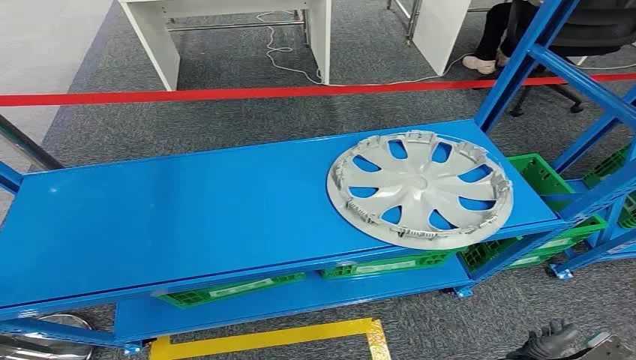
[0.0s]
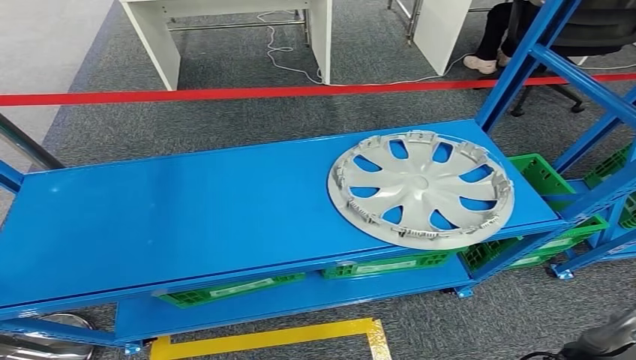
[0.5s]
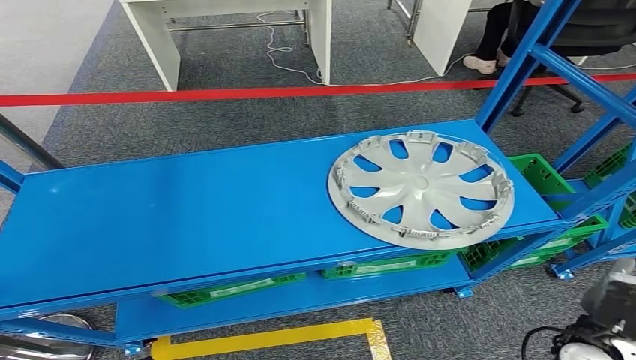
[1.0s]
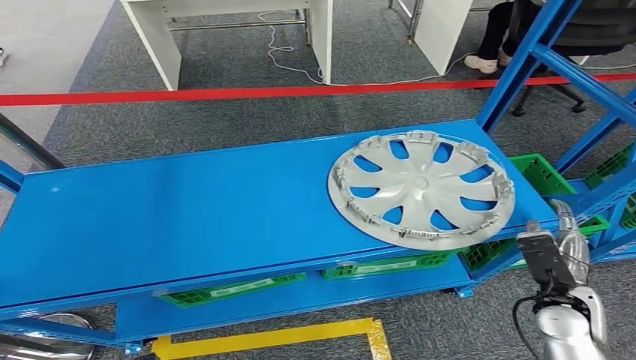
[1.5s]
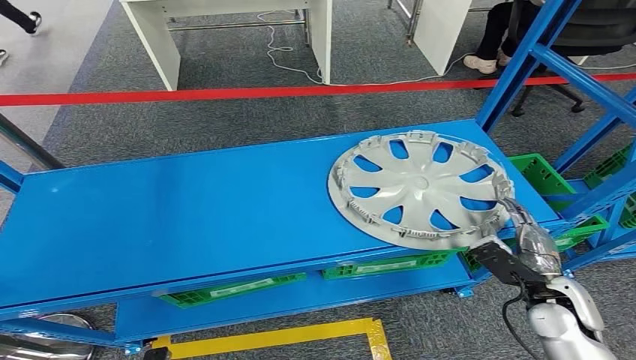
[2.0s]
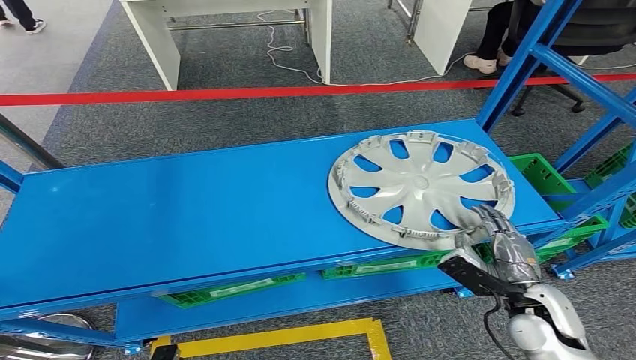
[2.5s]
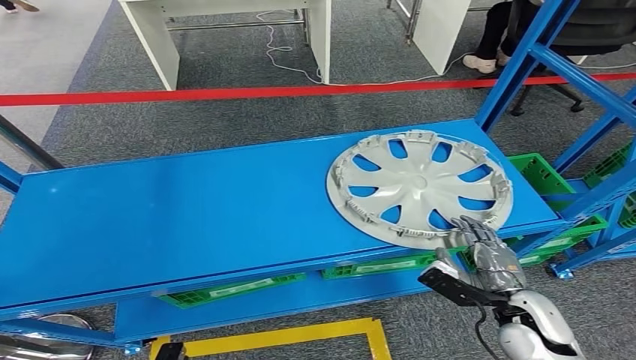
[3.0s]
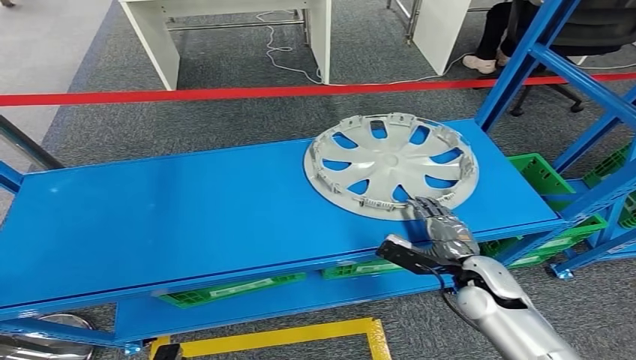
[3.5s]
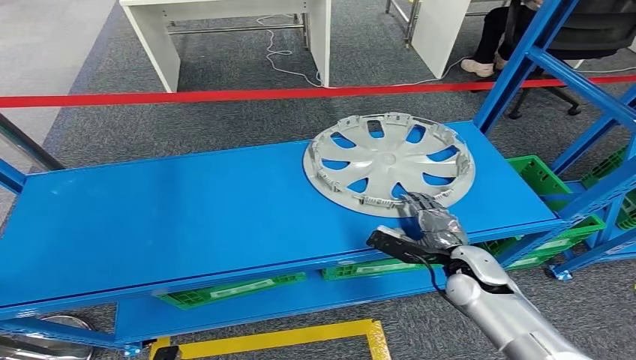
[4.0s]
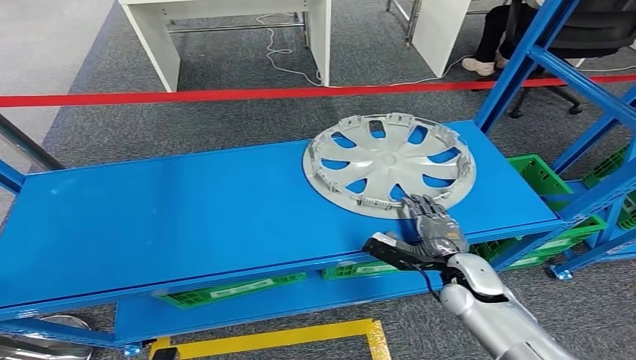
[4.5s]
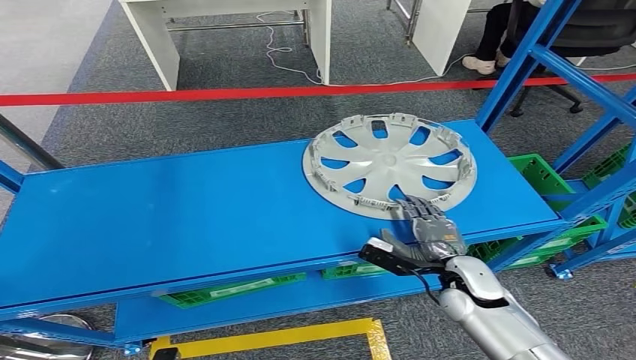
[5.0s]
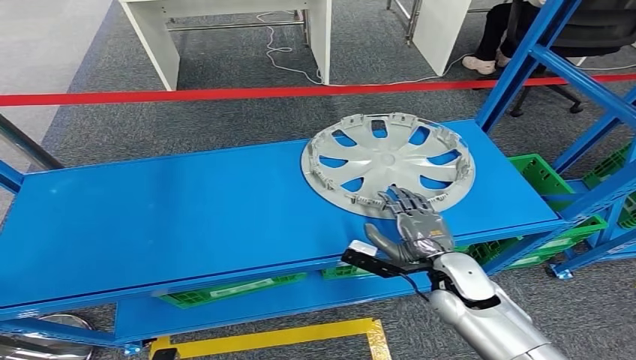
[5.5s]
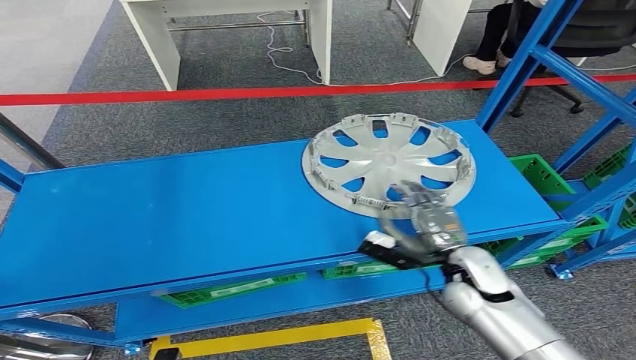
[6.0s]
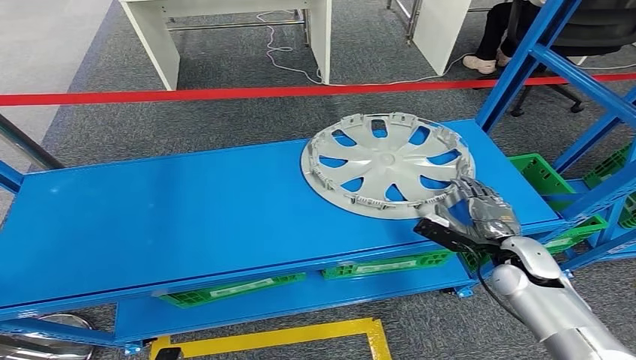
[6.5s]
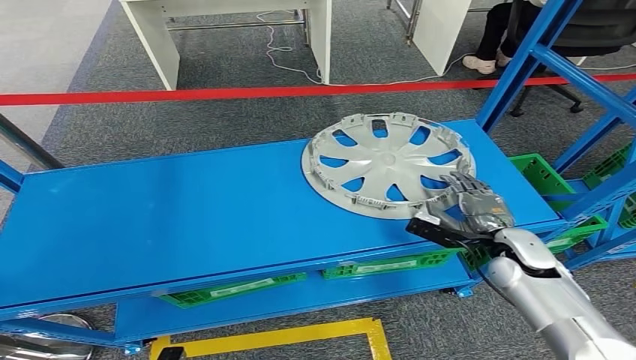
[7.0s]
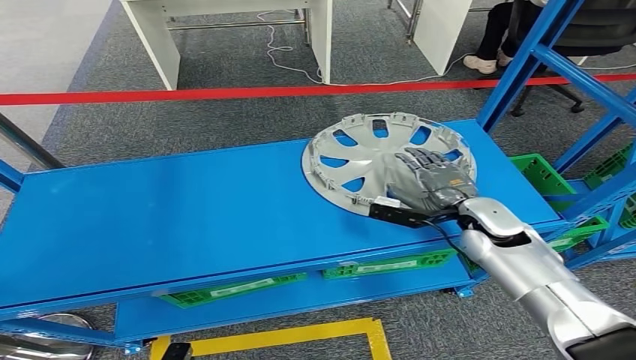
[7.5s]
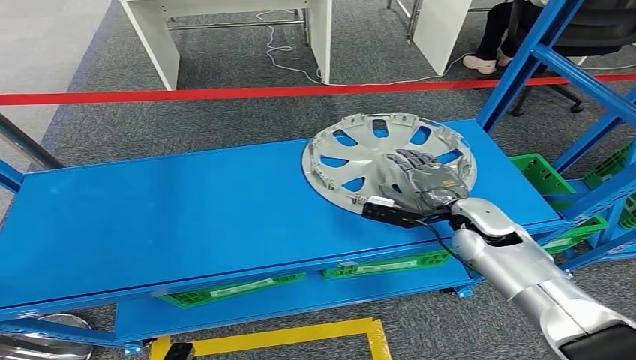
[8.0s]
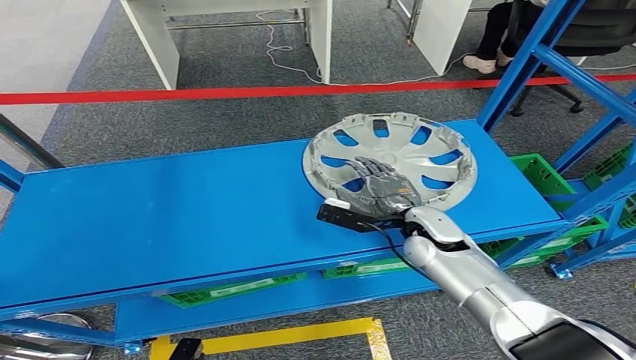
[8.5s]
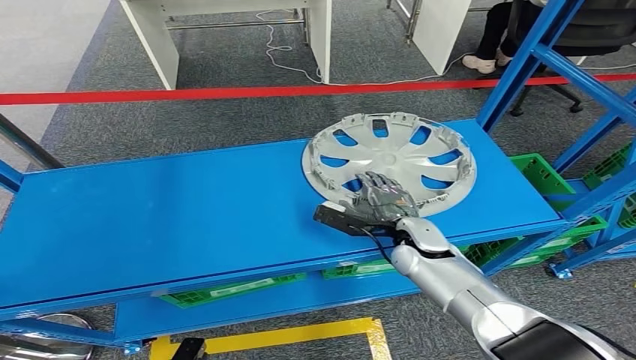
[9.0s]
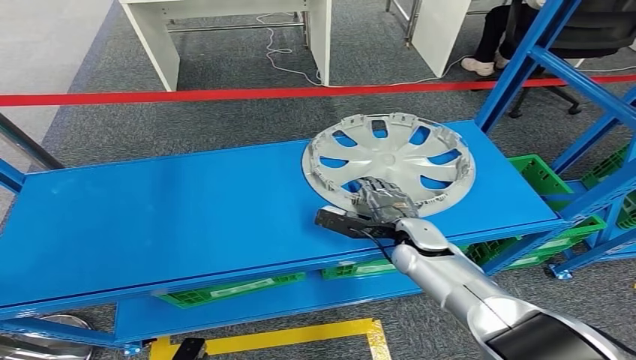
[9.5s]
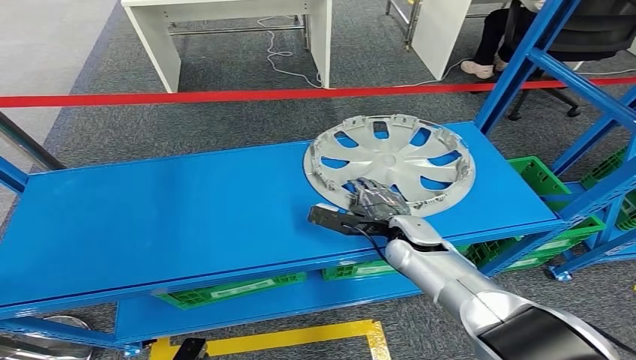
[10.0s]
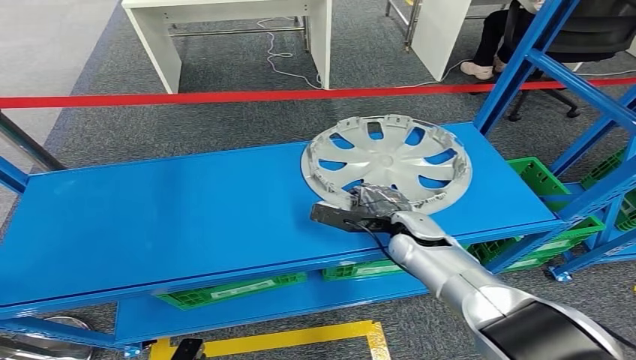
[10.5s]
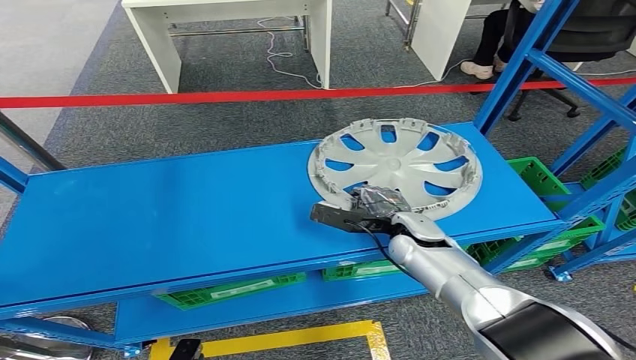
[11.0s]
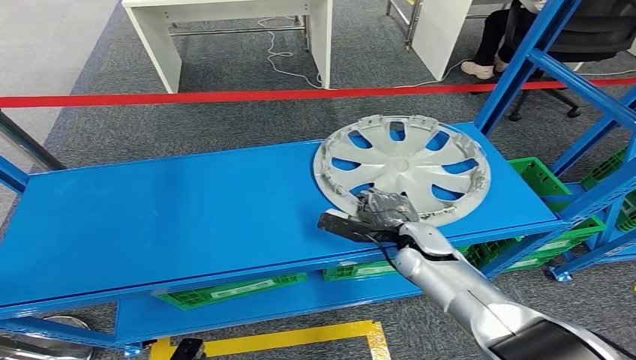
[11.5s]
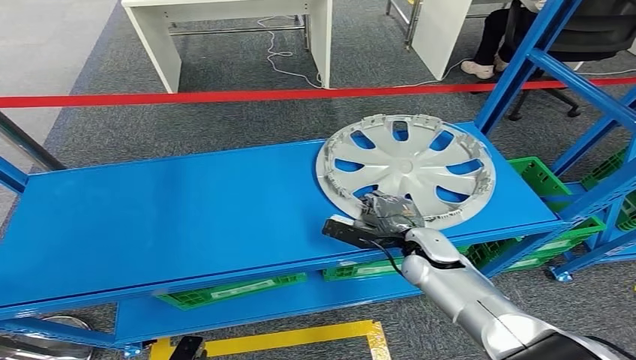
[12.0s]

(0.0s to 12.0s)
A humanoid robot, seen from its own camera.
6.0s - 8.0s: The right hand moves forward, about 10 cm, and travels to the right and back again, approximately 10 cm each way.
10.0s - 12.0s: The hands make only small movements.

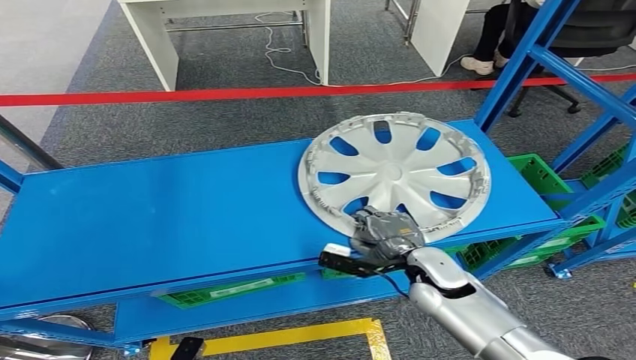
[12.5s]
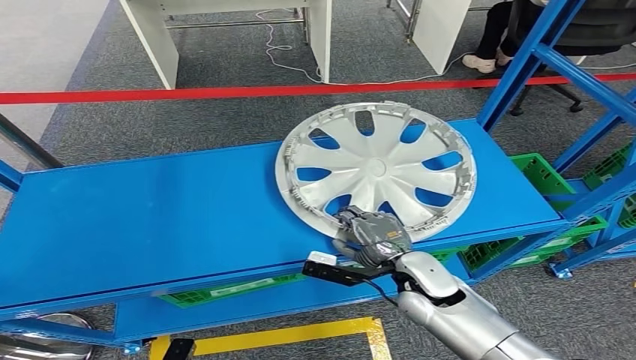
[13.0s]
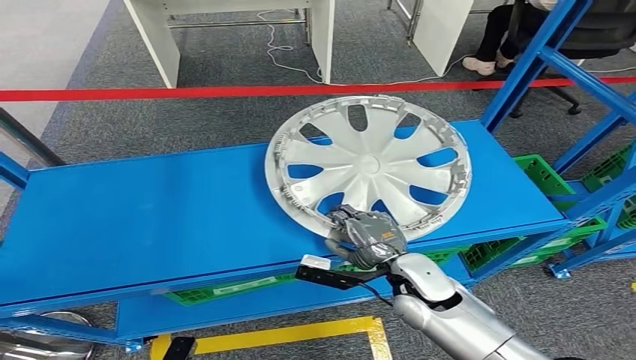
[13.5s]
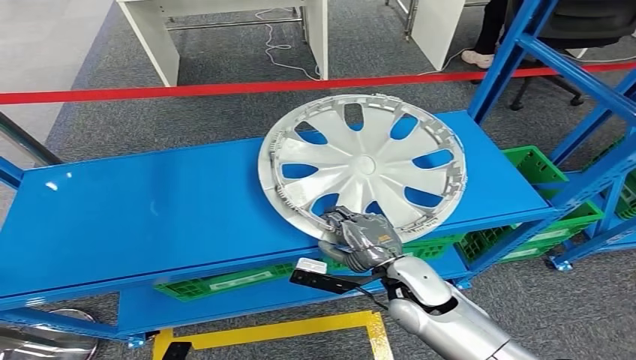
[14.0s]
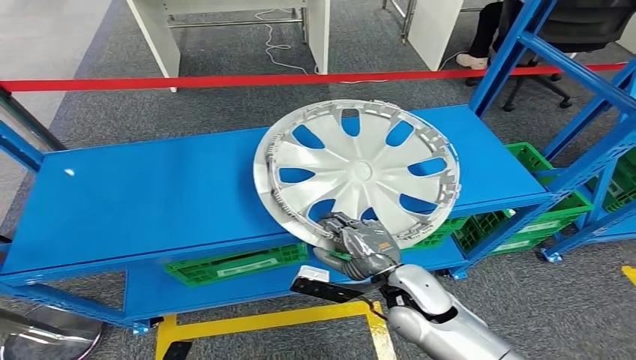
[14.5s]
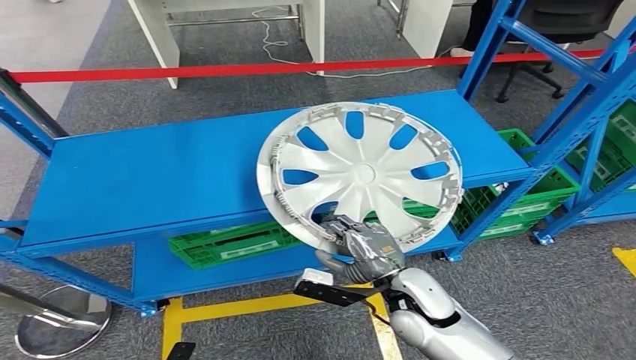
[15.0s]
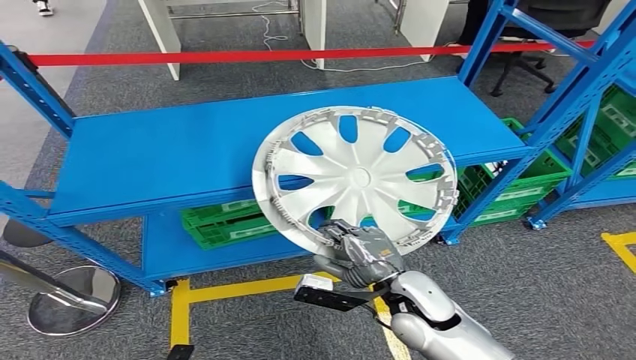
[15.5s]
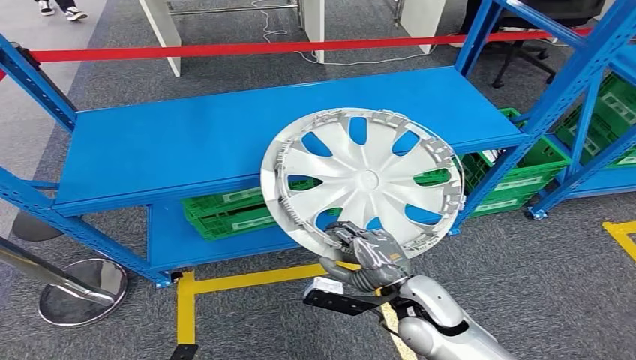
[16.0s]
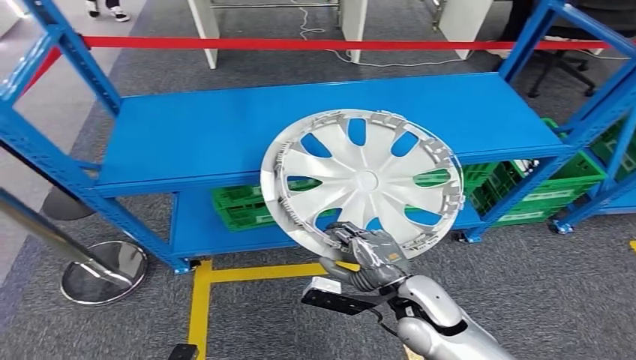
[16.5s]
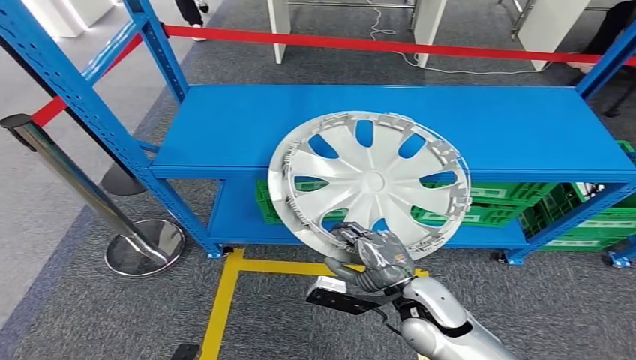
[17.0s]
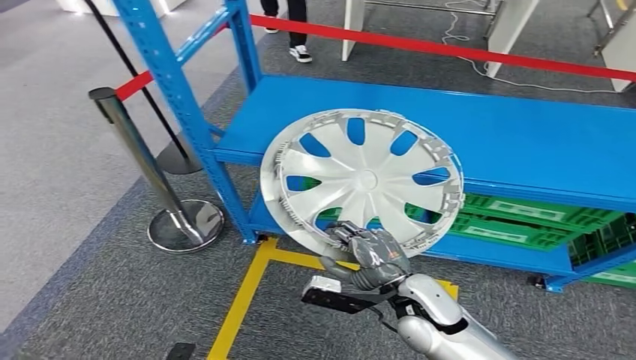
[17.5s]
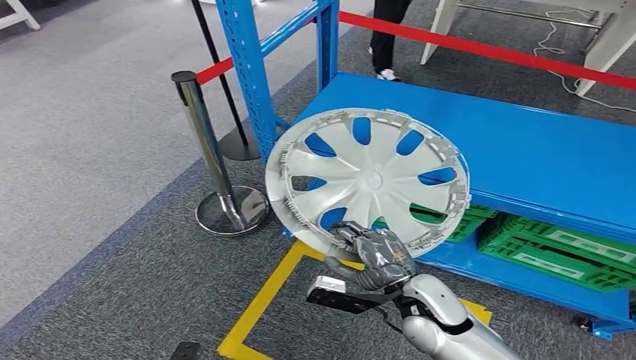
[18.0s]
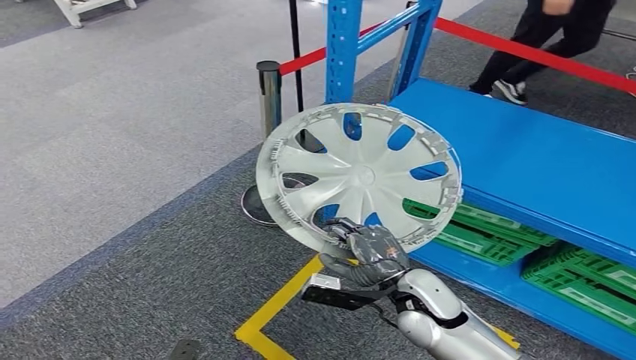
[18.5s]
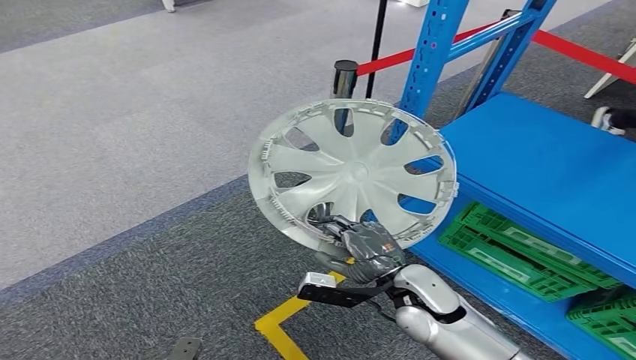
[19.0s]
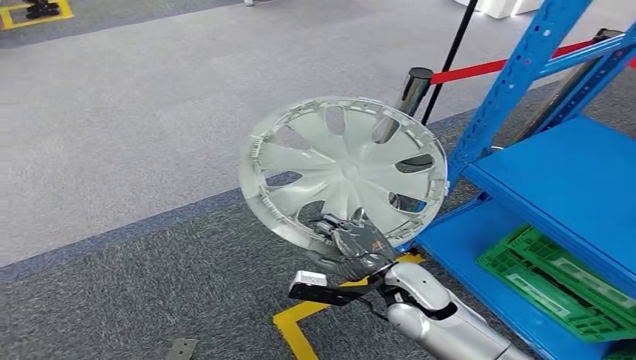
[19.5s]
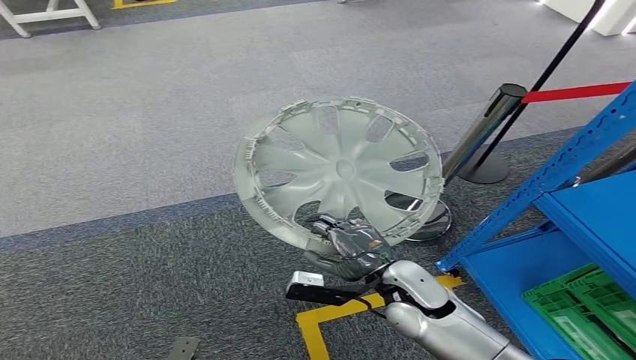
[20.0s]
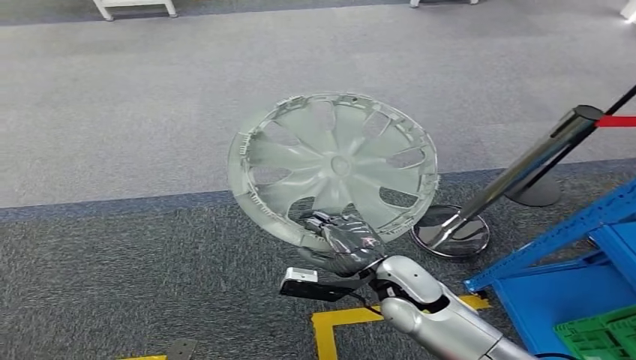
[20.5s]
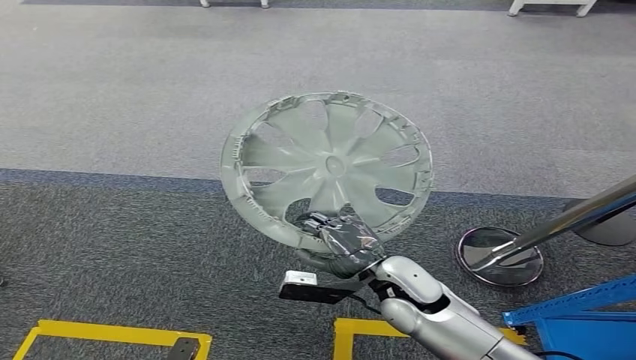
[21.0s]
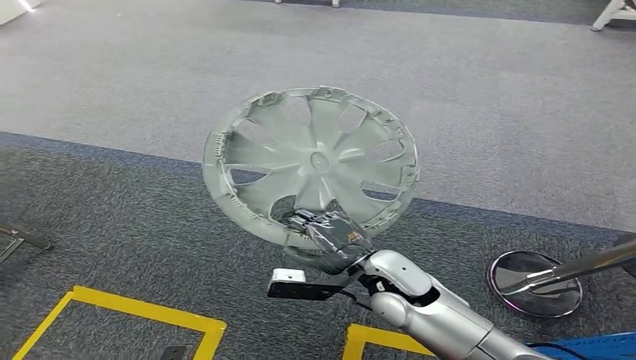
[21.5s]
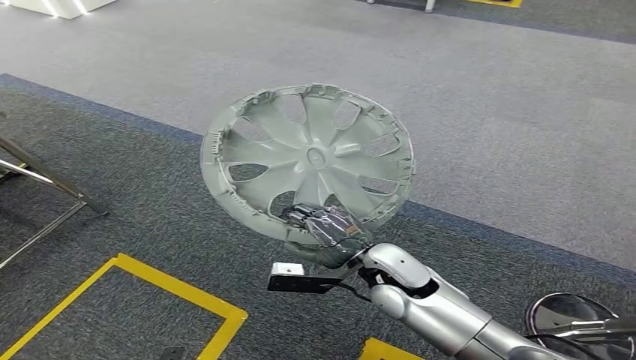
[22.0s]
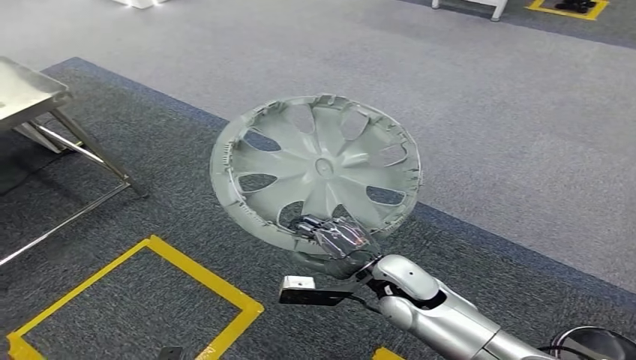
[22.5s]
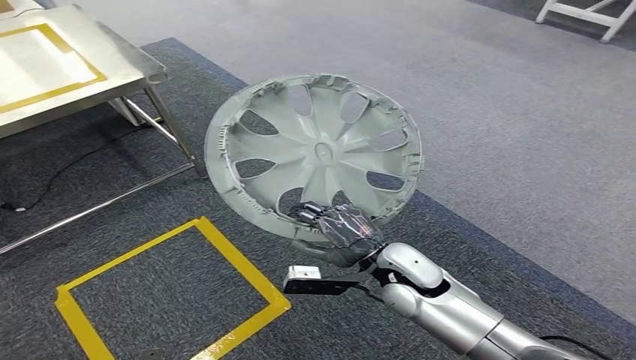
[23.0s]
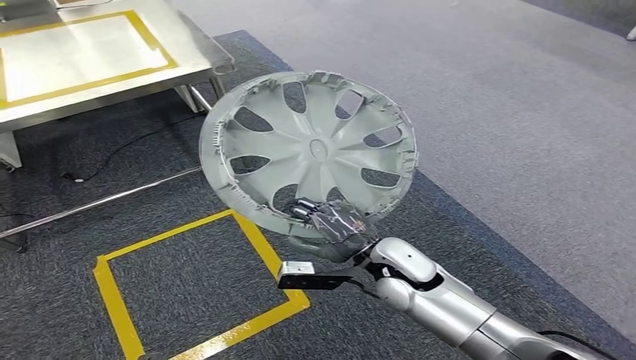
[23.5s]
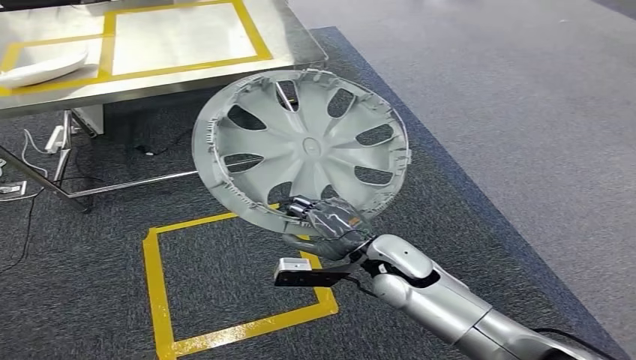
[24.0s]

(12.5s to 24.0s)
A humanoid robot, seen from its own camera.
Step, 12.5s - 15.0s: Pick up the small component from the shelf.
